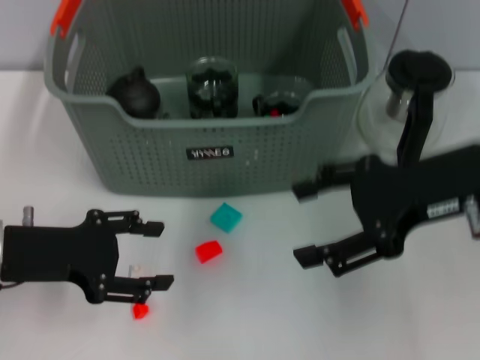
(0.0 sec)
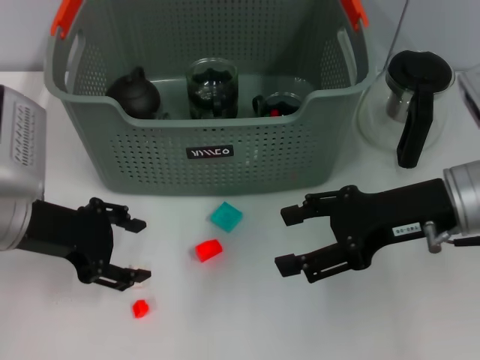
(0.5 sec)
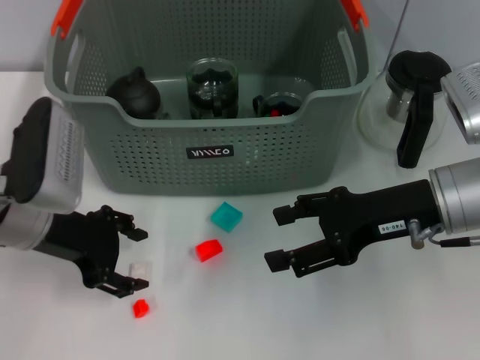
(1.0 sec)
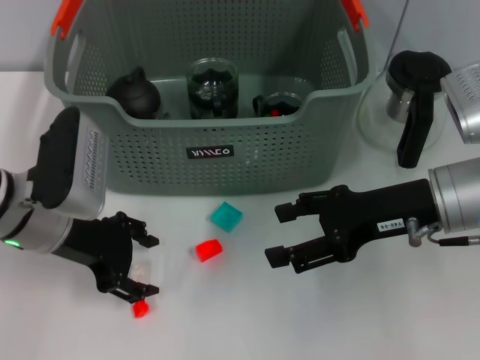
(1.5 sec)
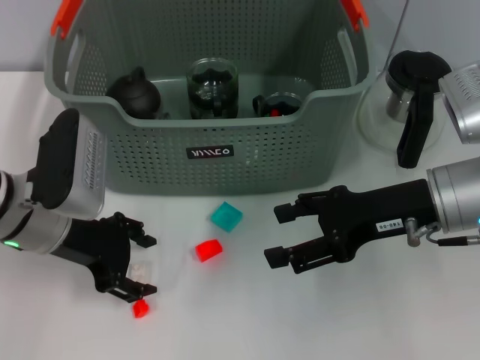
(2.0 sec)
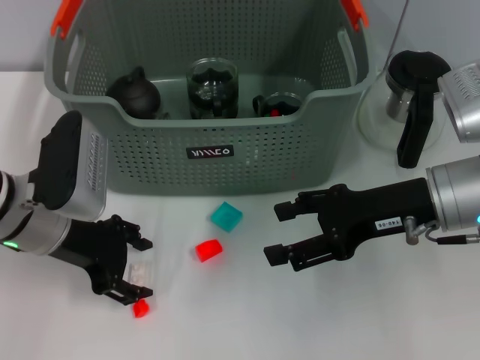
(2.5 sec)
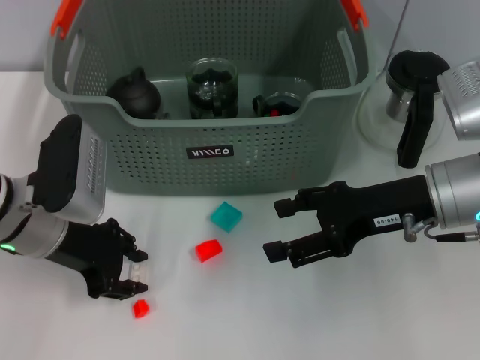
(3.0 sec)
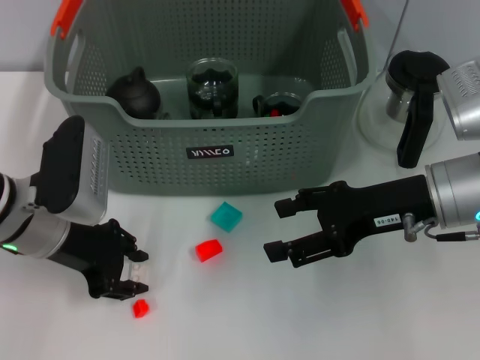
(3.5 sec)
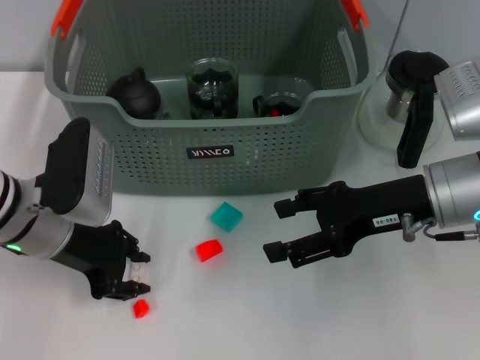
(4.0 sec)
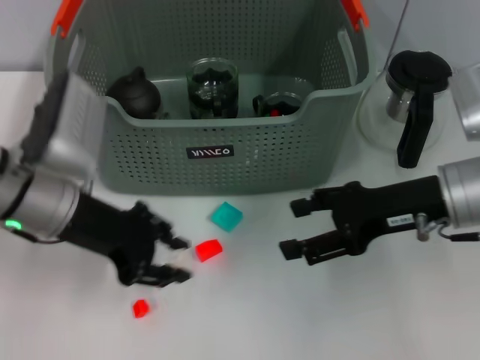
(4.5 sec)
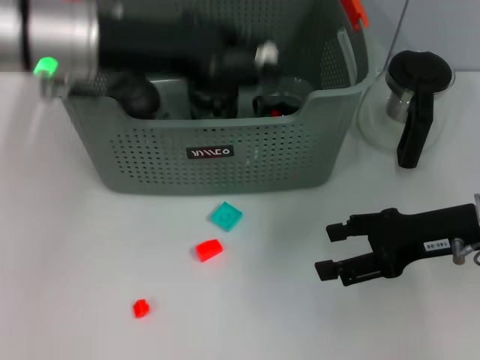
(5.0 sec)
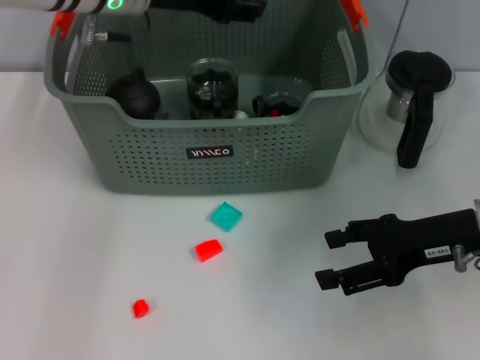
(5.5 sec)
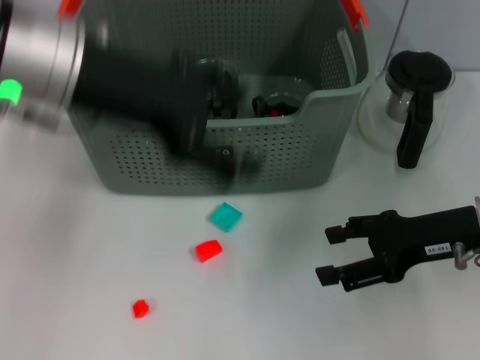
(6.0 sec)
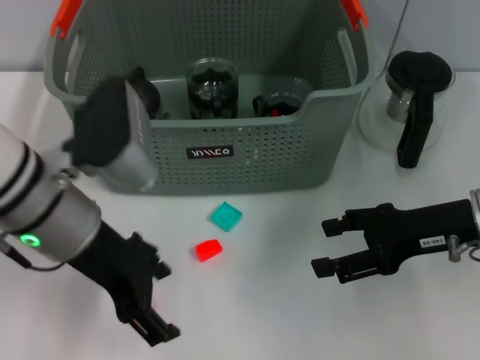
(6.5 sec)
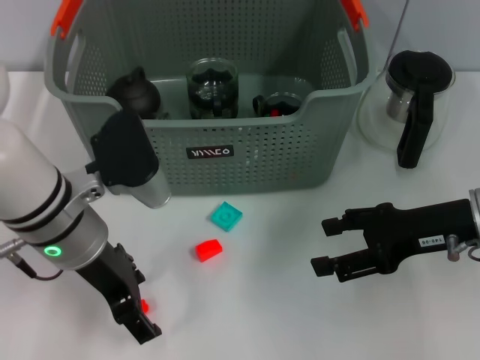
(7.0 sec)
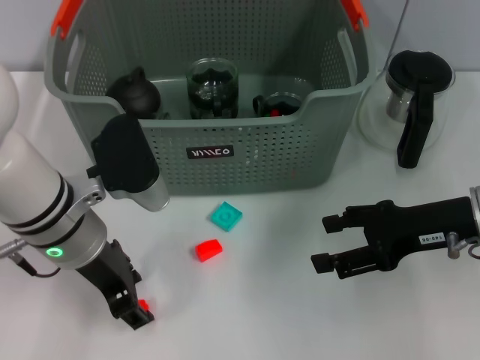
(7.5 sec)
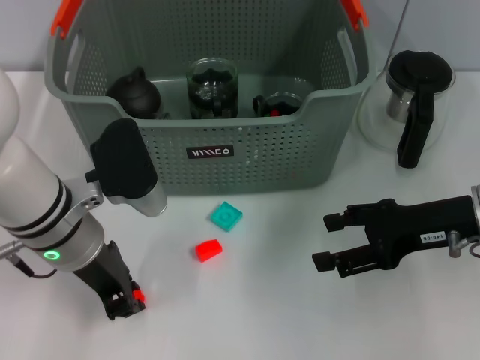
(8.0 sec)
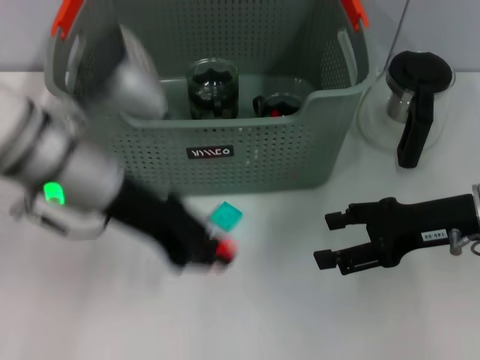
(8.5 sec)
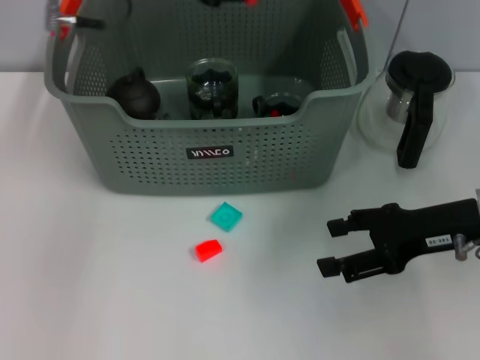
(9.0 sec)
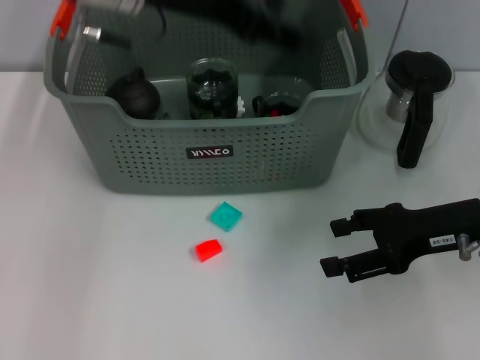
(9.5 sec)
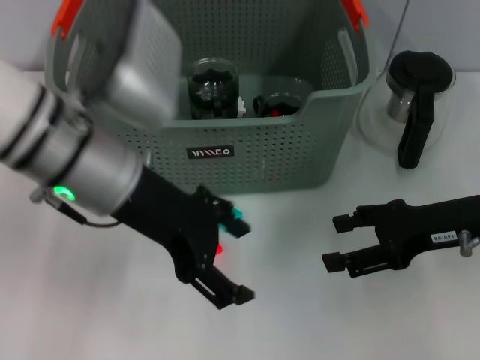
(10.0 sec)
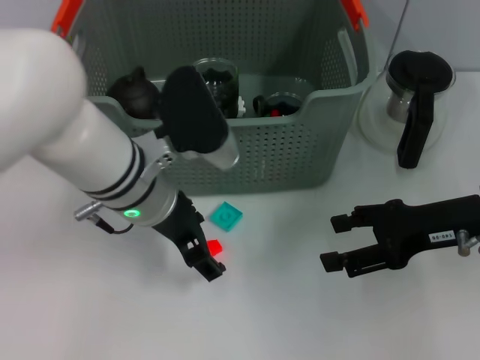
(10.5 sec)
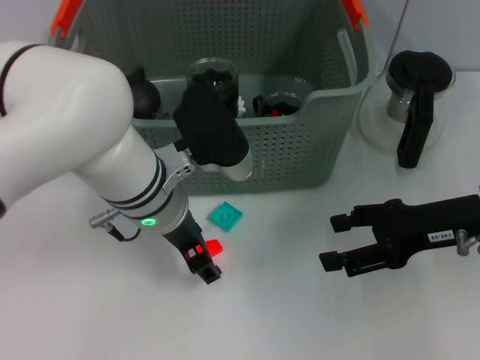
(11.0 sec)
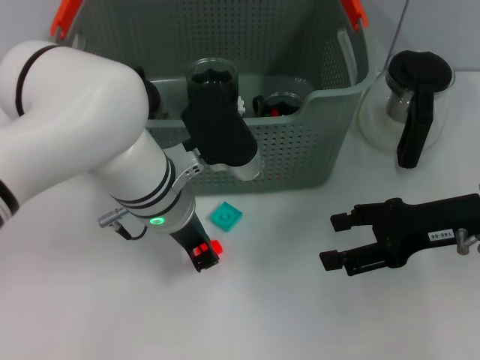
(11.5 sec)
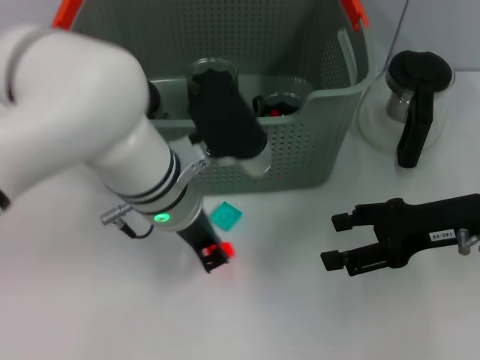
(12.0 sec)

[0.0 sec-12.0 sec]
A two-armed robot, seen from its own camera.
Task of the whole recording: pick up the teacup on the table and place it into the storage bin, pick up the block on the table and place it into the storage bin.
Step, 0.0 sec to 4.0 sec: Grasp the white block with left gripper.
Step, 4.5 sec to 5.5 sec: Place the white block in the storage box with left gripper.
Step, 6.0 sec to 8.0 sec: Grasp the orange block with left gripper.
Step, 8.5 sec to 9.0 sec: Place the orange block in the storage box with left gripper.
Step, 9.5 sec to 11.5 sec: Grasp the orange block with left gripper.
0.0 sec to 2.0 sec: The left gripper is displaced forward by roughly 5 cm, while the right gripper is displaced downward by roughly 5 cm.
2.0 sec to 4.0 sec: Both grippers stay put.
4.0 sec to 6.0 sec: The left gripper shifts some 15 cm upward, and opens its fingers. Meanwhile the right gripper moves to the right, some 5 cm.
6.0 sec to 8.0 sec: The left gripper is displaced downward by roughly 15 cm, and closes up.
8.0 sec to 10.0 sec: The left gripper is displaced upward by about 10 cm, and opens.
10.0 sec to 12.0 sec: The left gripper heads downward and to the right, covering about 10 cm, and closes.

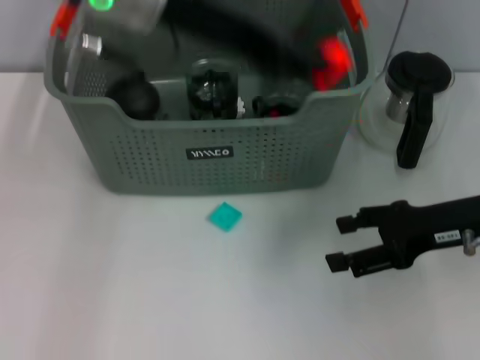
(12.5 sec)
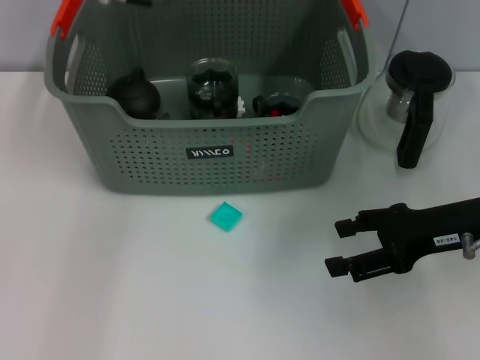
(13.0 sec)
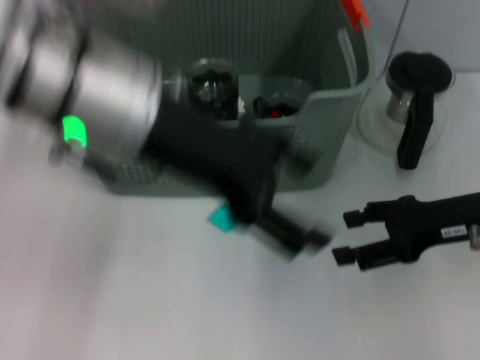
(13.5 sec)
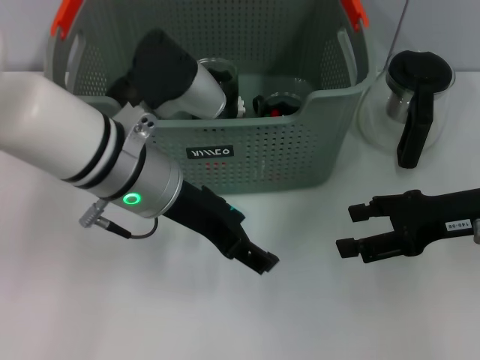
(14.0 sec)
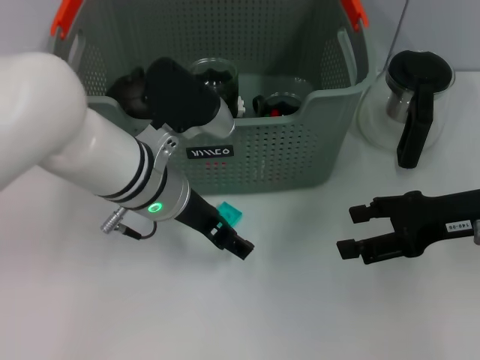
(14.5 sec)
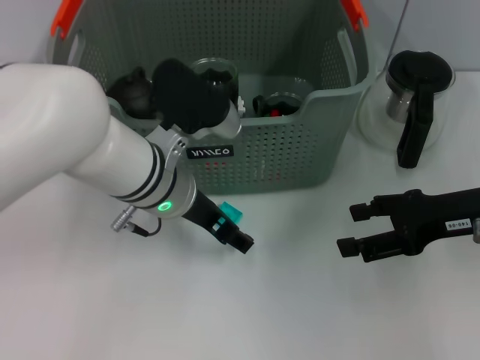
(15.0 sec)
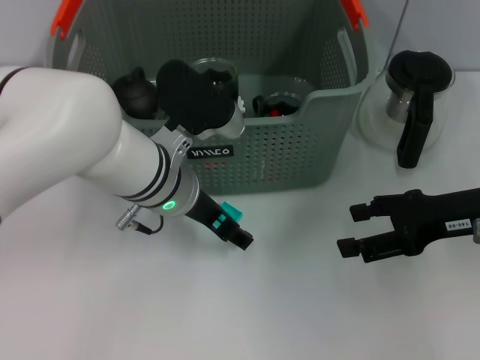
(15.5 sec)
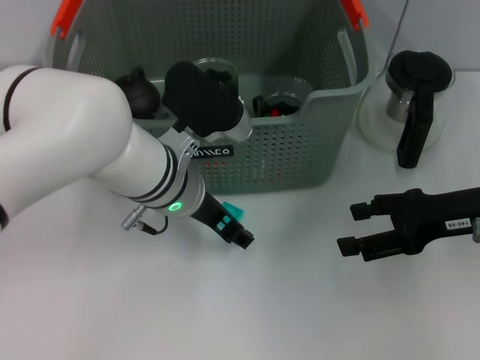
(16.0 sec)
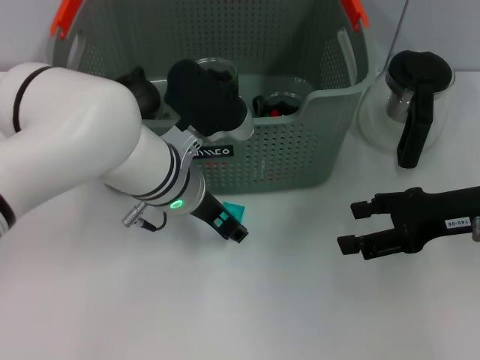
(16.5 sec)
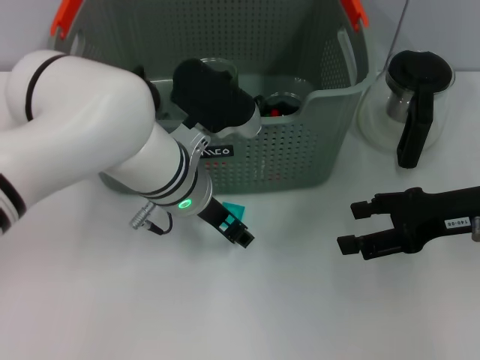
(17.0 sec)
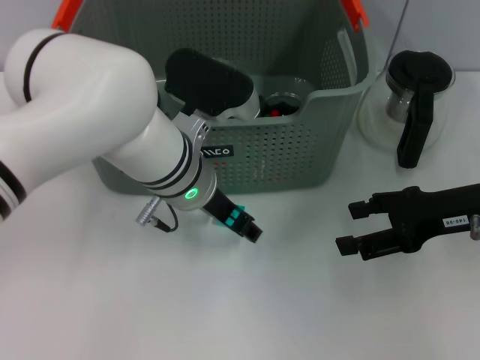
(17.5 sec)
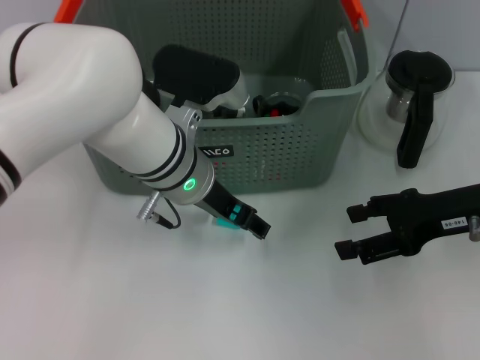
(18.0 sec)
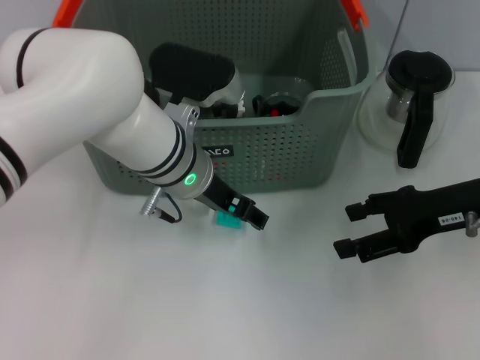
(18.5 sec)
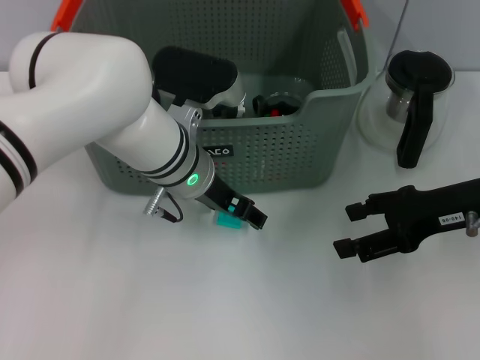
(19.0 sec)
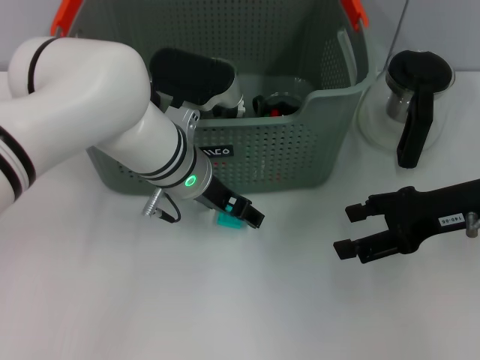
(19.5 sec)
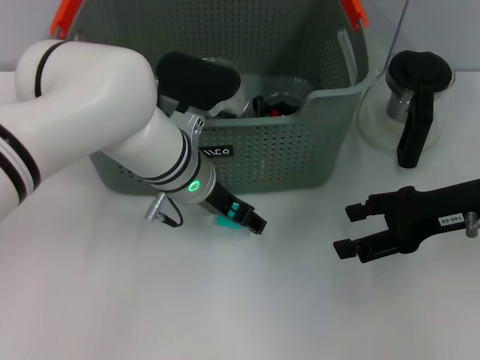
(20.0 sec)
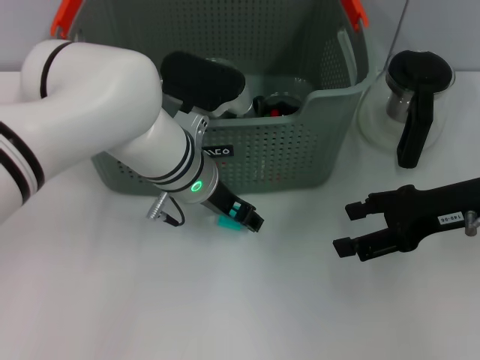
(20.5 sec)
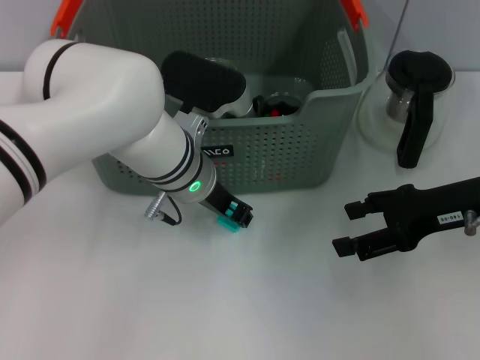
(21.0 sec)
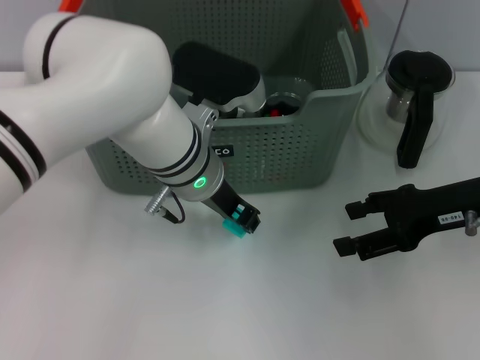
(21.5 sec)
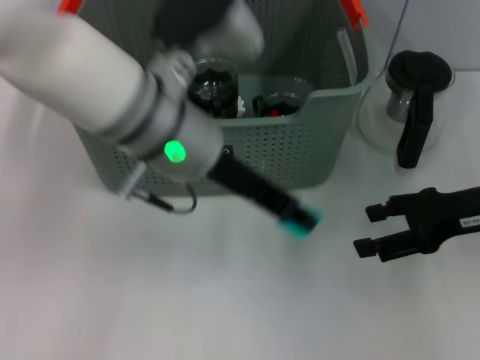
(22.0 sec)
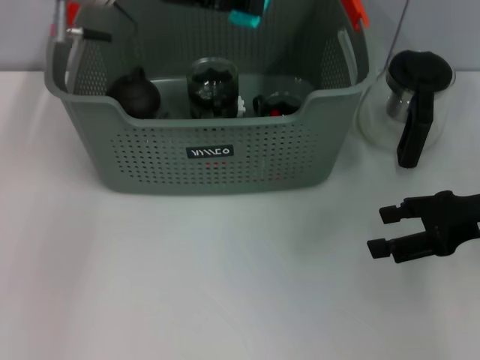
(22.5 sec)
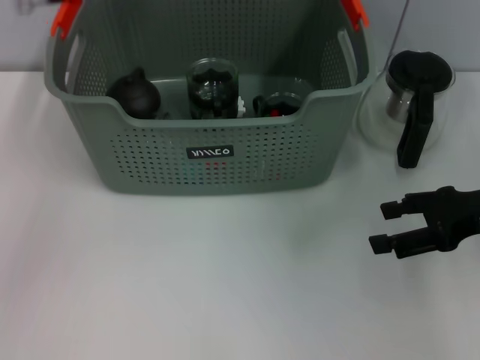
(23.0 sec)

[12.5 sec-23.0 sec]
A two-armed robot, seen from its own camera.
Task of the whole recording: pick up the teacup on the table and place it into the storage bin, pick up the block on the table and place it into the storage bin.
Step, 13.5 sec to 21.0 sec: Grasp the light blue block with left gripper.
Step, 21.5 sec to 22.5 sec: Place the light blue block in the storage box with left gripper.
12.5 sec to 14.5 sec: The left gripper shifts approximately 20 cm downward, and opens its fingers.
14.5 sec to 19.0 sec: The grippers make only small movements.
19.0 sec to 21.0 sec: The left gripper closes up.
21.0 sec to 23.0 sec: The left gripper shifts roughly 20 cm upward and to the left.

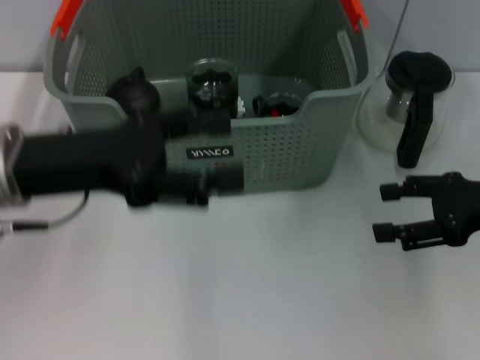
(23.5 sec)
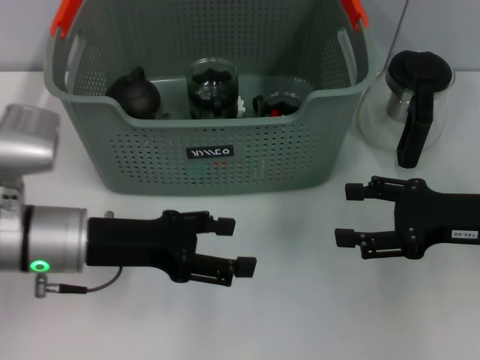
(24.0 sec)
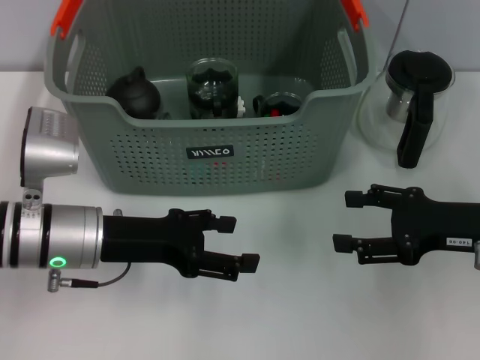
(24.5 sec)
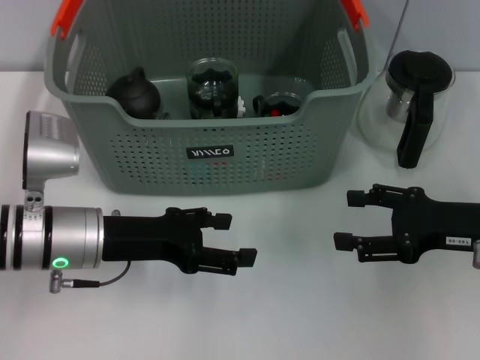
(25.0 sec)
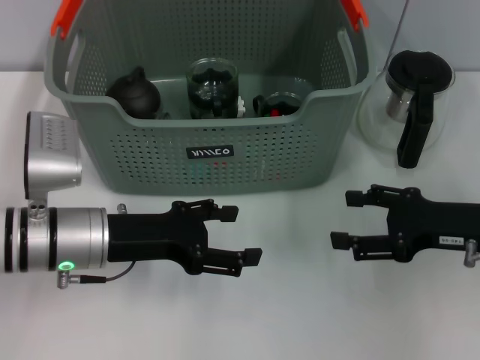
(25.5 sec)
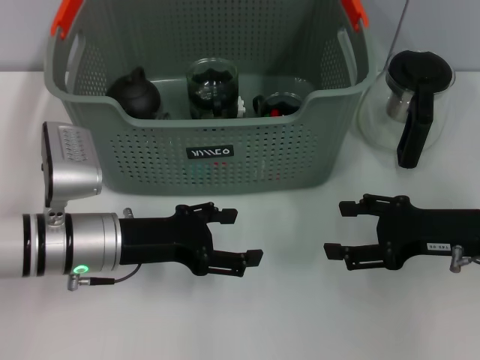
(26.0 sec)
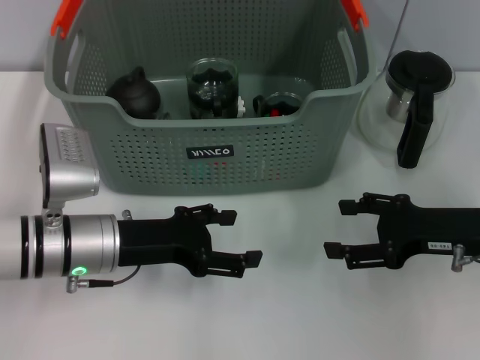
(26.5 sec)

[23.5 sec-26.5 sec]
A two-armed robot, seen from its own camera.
Task of the whole recording: pick up the teacup on the table and place it into the storage bin, pick up the block on the table and place it into the storage bin.
23.5 sec to 25.0 sec: The right gripper changes place by some 5 cm, while the left gripper goes approximately 10 cm downward.
25.0 sec to 26.5 sec: The grippers stay close to where they were, moving slightly.
